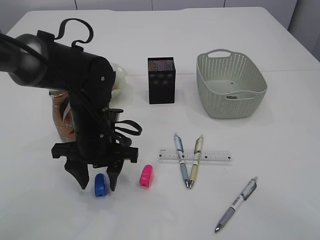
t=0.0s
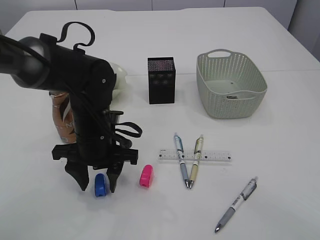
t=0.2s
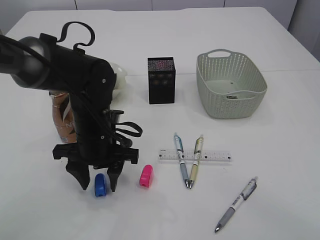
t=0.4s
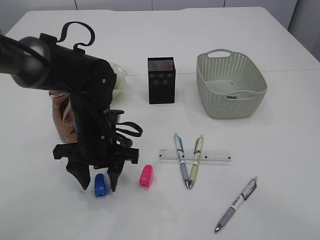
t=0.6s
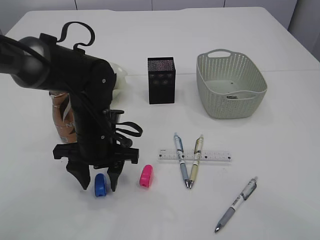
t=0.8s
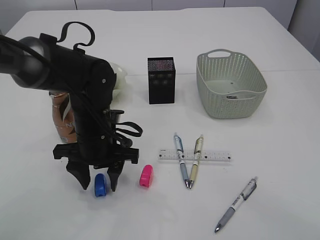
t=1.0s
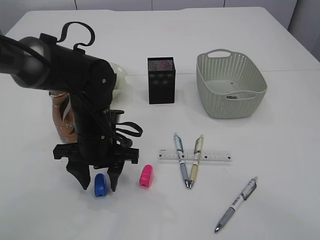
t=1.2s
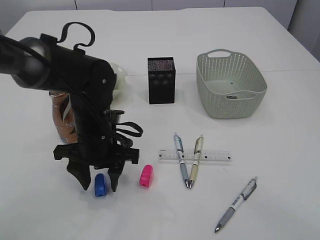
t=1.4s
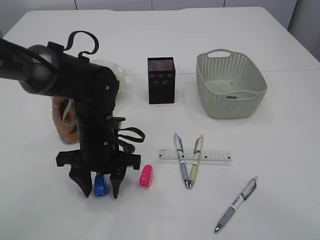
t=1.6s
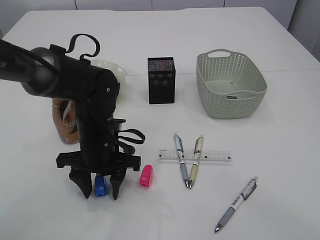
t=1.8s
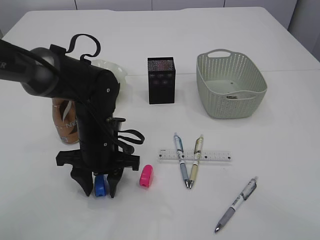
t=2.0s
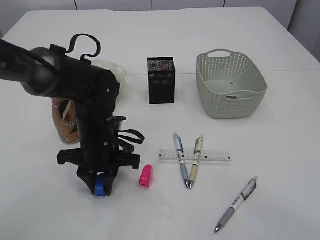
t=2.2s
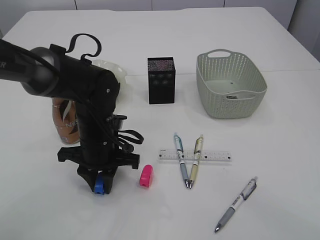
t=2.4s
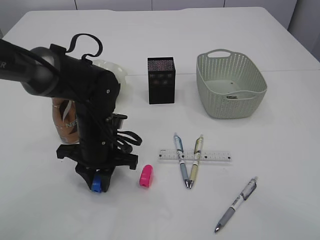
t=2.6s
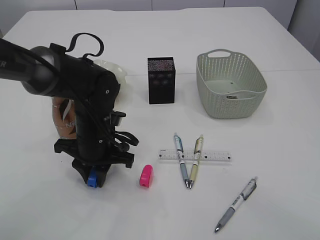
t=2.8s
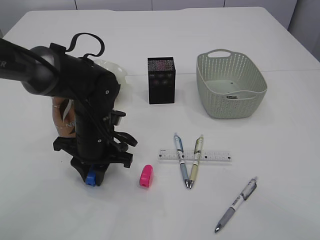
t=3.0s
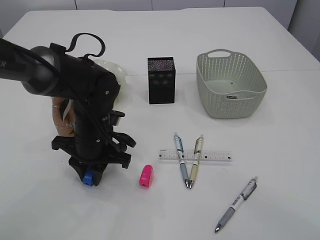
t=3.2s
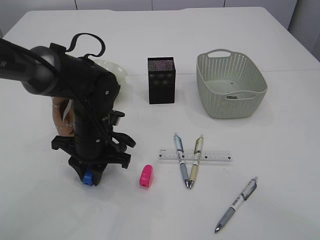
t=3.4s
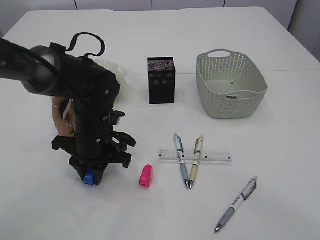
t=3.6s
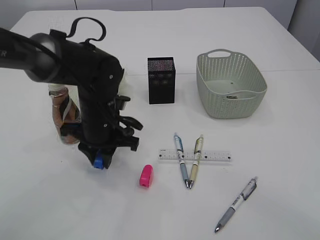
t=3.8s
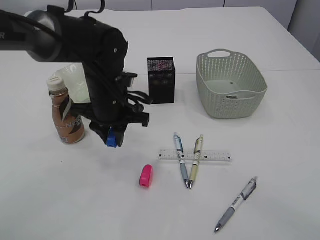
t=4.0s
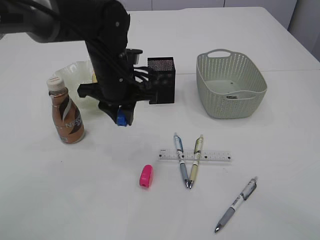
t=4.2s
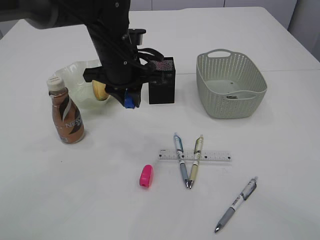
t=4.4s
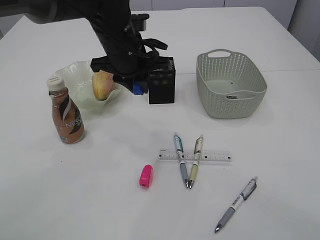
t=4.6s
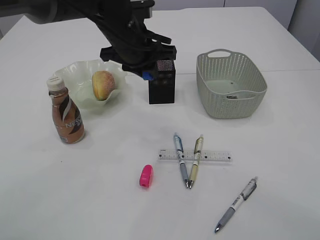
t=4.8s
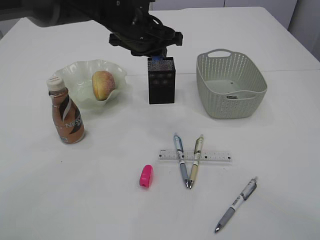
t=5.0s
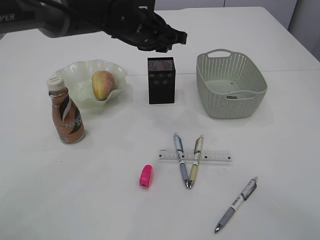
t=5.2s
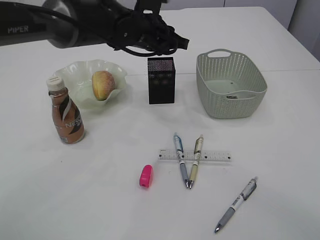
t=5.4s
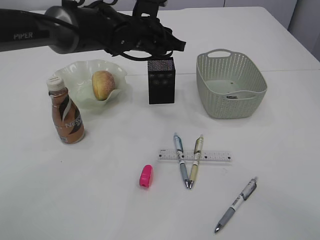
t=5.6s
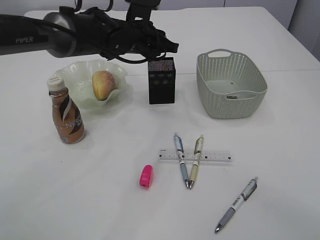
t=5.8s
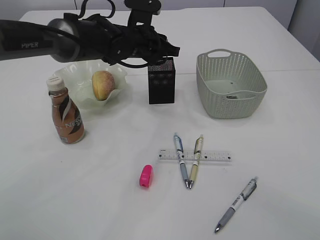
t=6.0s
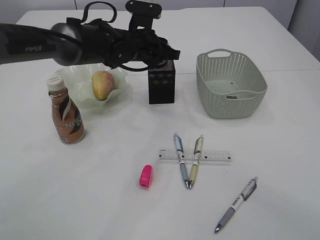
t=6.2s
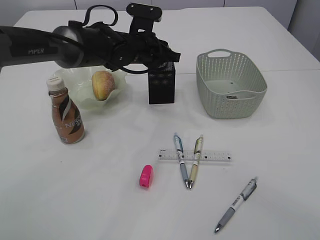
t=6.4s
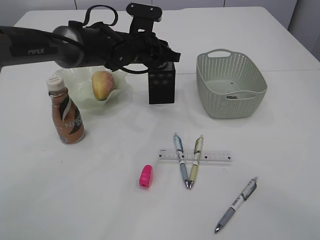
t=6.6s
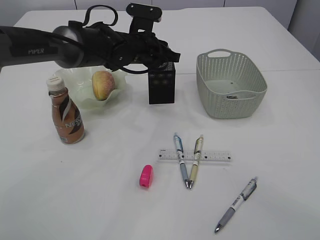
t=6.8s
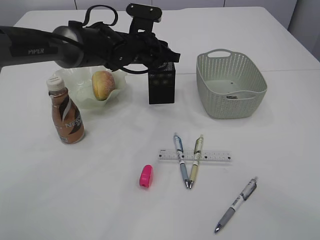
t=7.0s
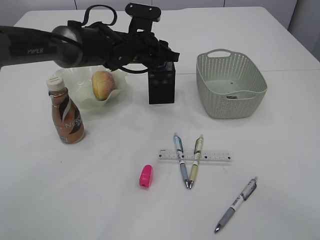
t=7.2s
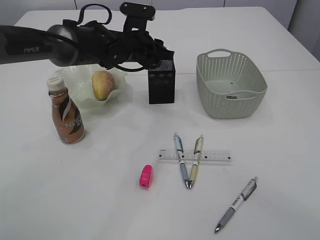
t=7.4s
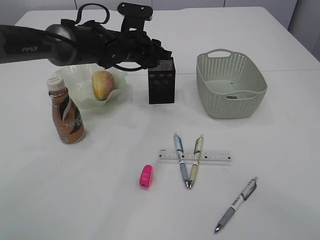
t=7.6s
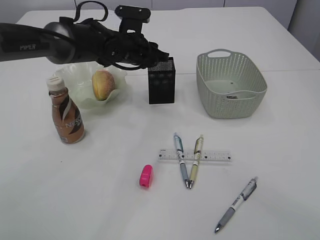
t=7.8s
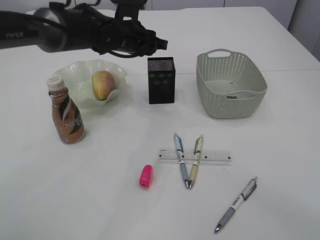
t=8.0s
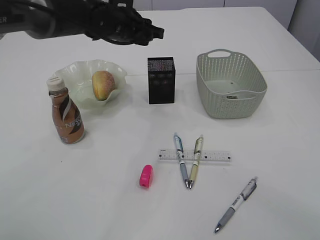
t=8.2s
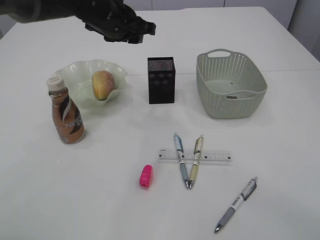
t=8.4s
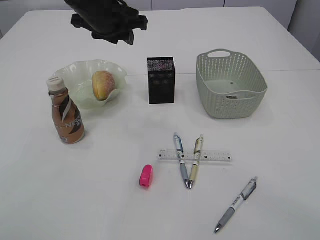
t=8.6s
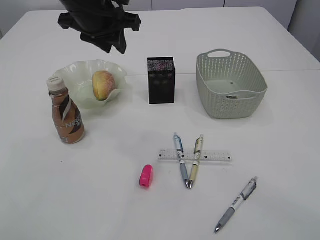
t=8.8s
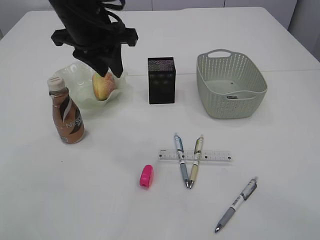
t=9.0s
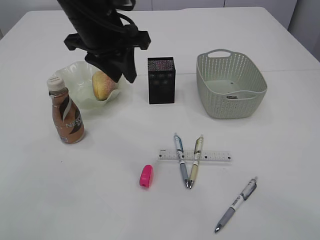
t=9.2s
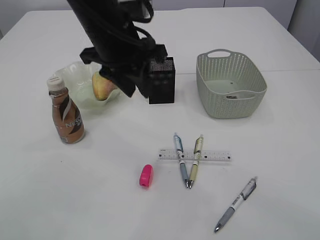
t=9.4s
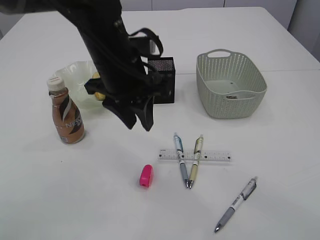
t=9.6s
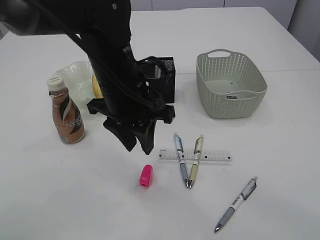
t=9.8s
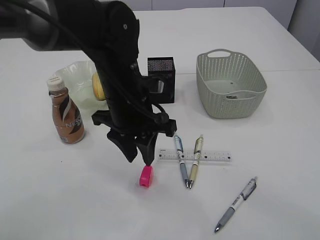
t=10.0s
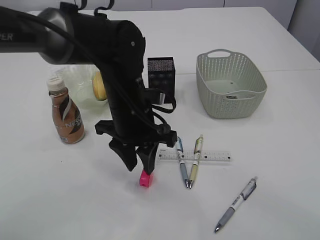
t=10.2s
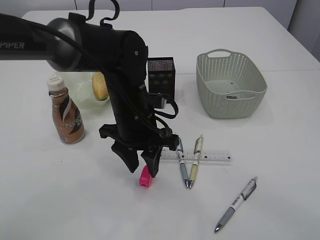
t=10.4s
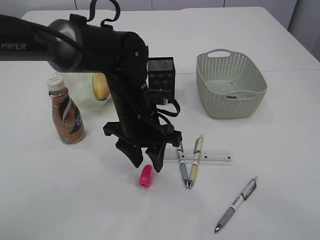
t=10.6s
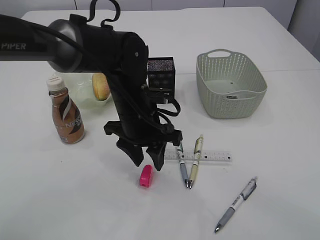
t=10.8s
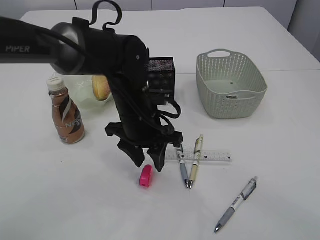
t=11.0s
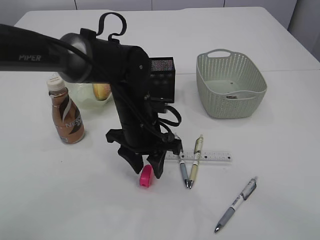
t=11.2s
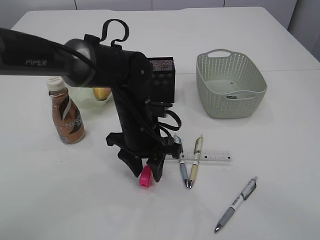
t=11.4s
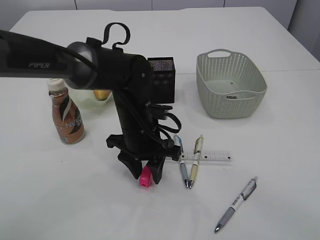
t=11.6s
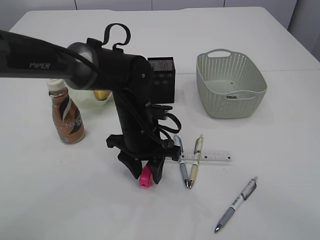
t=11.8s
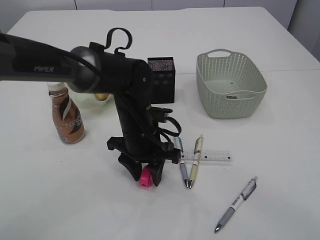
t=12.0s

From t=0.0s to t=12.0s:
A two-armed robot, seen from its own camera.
Step, from t=0.0s to t=4.0s: Pick up the blue pencil sharpener.
Step, from t=4.2s to t=8.2s: Place the blue pencil sharpener into the pen holder.
From t=0.0s to t=1.6s: There are only small adjustments of the grippers.
From t=1.6s to t=3.0s: The left gripper closes.
From t=3.0s to t=4.4s: The left gripper moves upward and forward, approximately 15 cm.
From t=4.4s to t=6.0s: The left gripper shifts some 10 cm forward.
From t=6.0s to t=7.6s: The grippers move only a little.
From t=7.6s to t=9.0s: The left gripper travels upward, backward and to the left by some 15 cm.
From t=9.0s to t=10.4s: The left gripper heads downward, to the right and backward, covering about 15 cm.
From t=10.4s to t=12.0s: The grippers make only small movements.

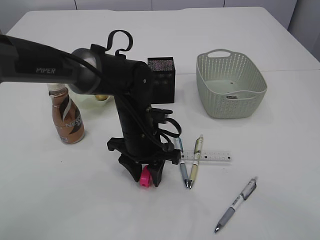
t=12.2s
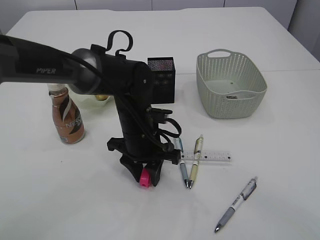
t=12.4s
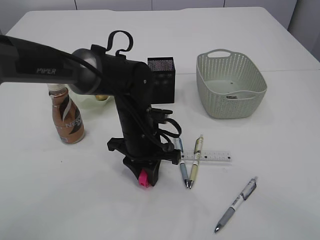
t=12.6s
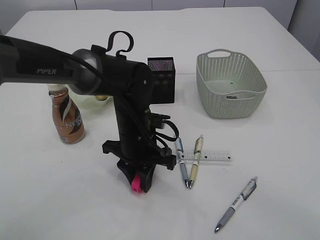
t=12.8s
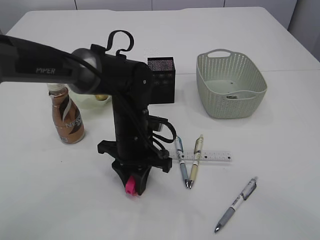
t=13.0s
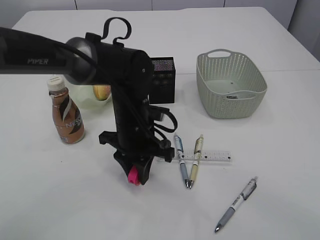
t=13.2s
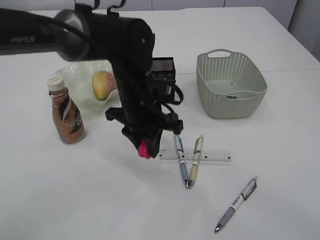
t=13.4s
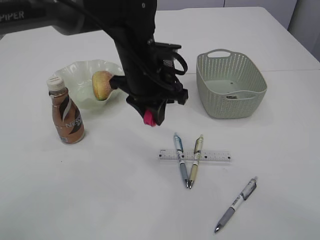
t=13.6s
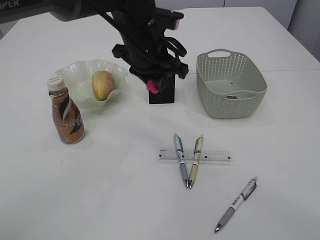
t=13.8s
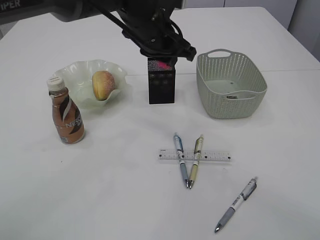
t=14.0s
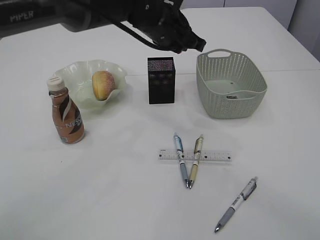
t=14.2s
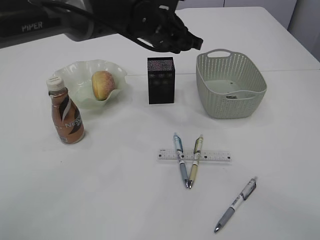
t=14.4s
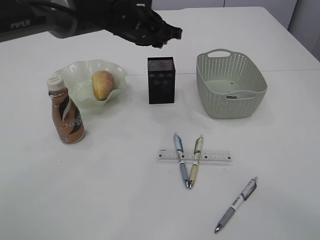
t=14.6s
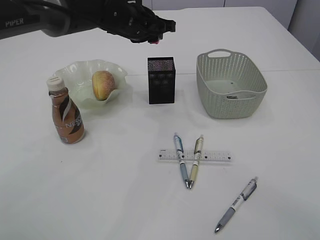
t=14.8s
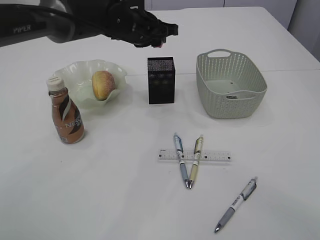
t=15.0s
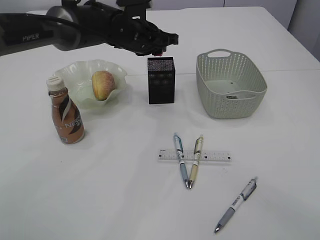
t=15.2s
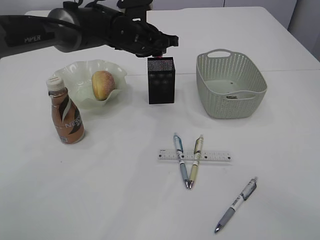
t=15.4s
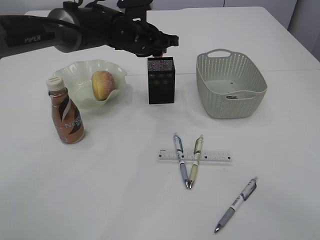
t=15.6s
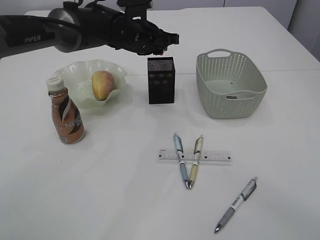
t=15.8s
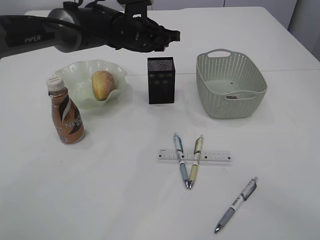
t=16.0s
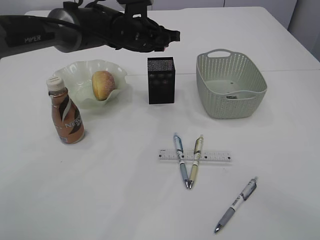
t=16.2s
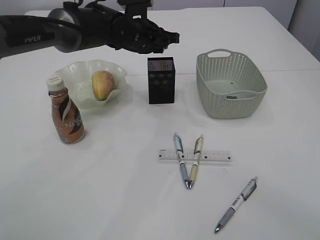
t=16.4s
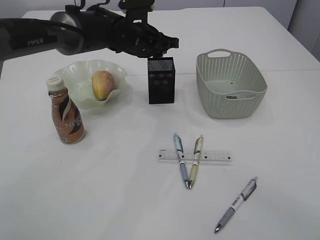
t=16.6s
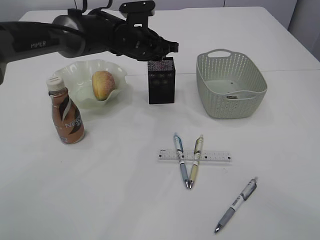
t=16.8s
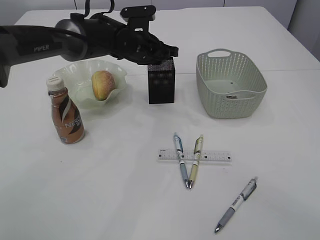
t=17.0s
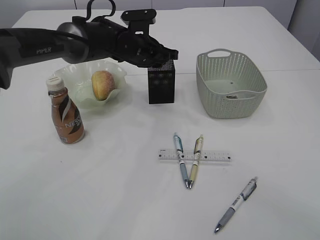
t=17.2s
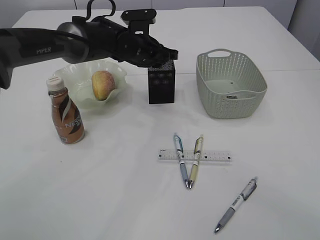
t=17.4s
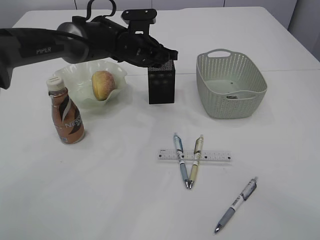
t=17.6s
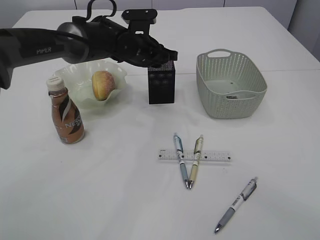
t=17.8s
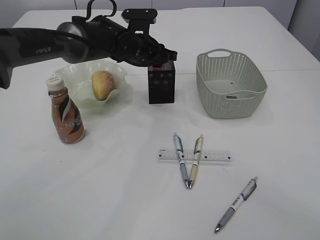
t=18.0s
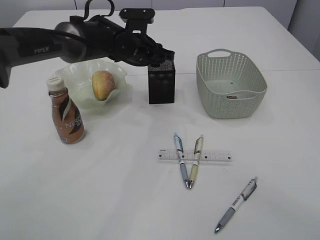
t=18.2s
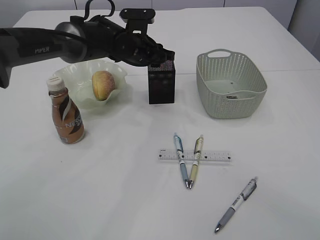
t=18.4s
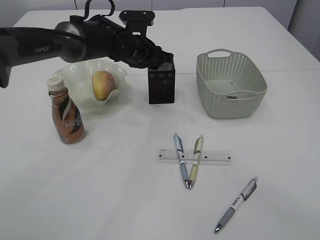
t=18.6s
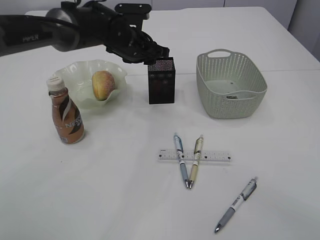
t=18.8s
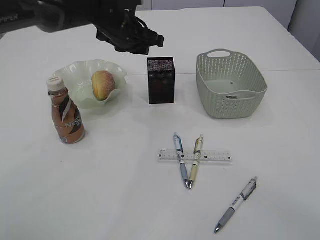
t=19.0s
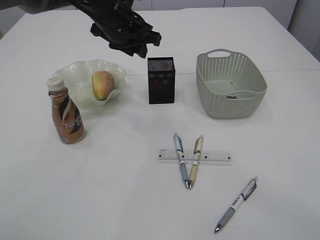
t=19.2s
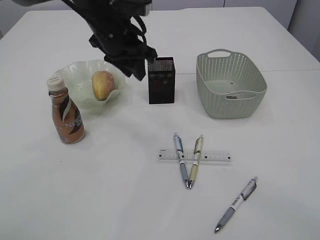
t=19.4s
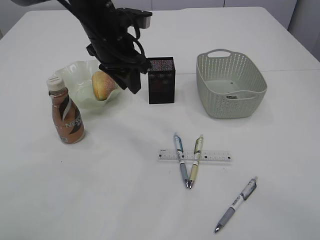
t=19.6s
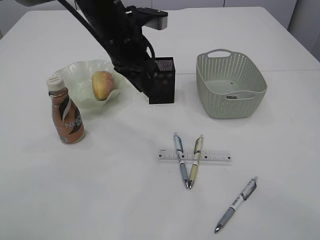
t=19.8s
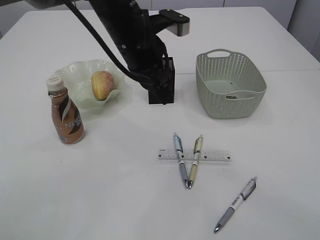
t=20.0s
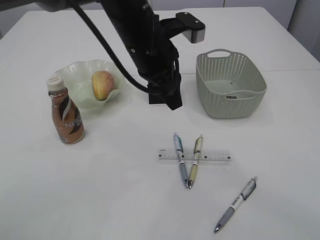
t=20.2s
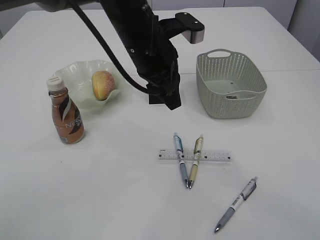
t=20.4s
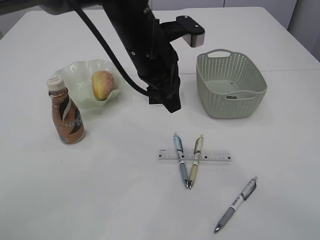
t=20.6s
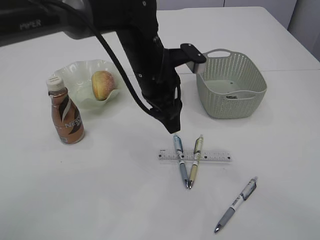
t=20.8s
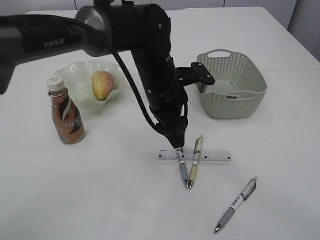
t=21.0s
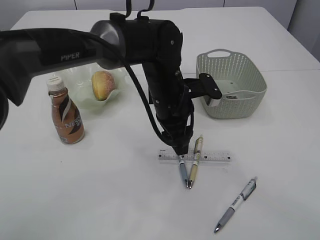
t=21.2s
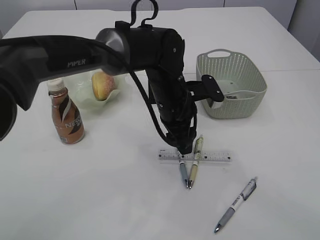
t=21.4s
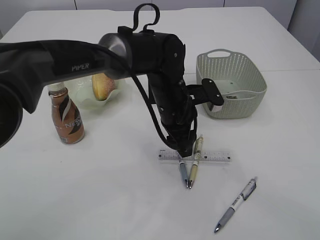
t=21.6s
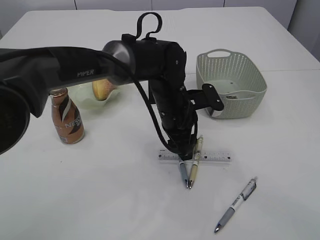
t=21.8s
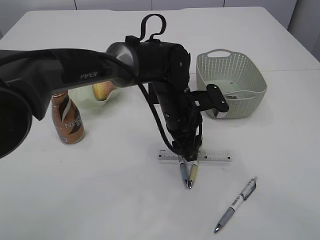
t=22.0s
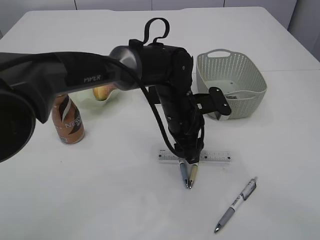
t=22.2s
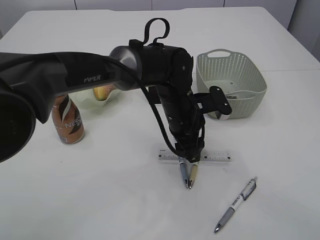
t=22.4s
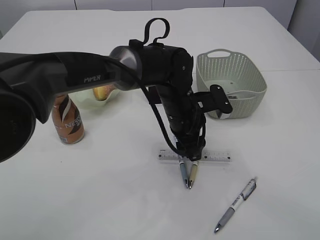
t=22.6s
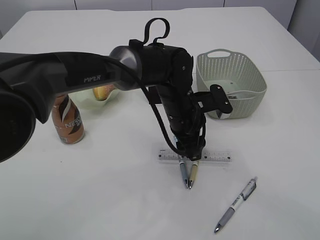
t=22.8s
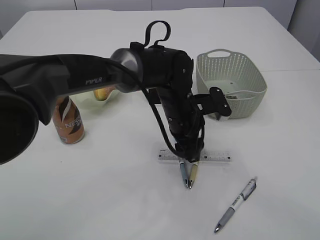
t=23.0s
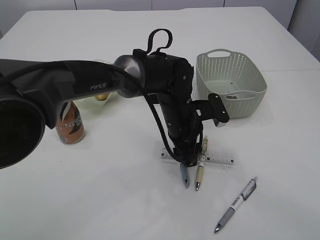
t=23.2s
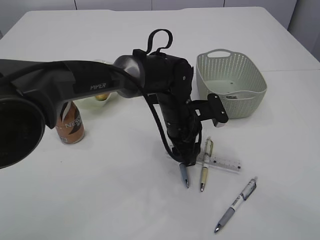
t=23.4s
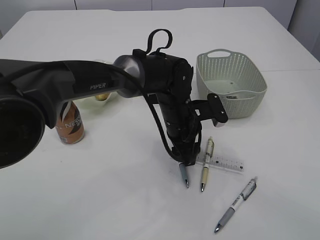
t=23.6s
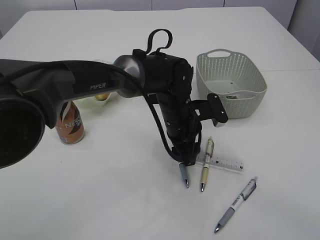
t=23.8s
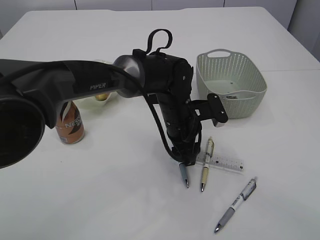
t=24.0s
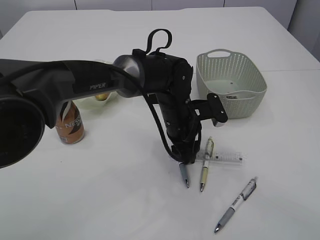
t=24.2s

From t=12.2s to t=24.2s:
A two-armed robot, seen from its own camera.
Step, from t=13.8s to t=19.0s: Place the red pencil sharpener into the pen holder.
From t=12.2s to t=13.8s: The left gripper shifts about 15 cm upward, and closes.
From t=13.8s to t=15.2s: The left gripper heads forward, covering about 10 cm.
From t=15.2s to t=16.6s: The two grippers keep their place.
From t=16.6s to t=18.2s: The grippers stay close to where they were, moving slightly.
From t=18.2s to t=19.8s: The left gripper heads backward and upward, covering some 10 cm.
From t=19.8s to t=21.2s: The left gripper travels downward and to the right by approximately 15 cm.
From t=21.2s to t=24.2s: There are only small adjustments of the grippers.
